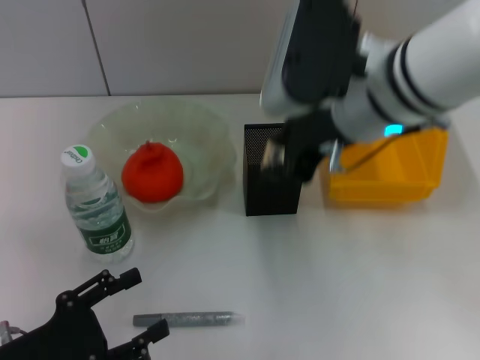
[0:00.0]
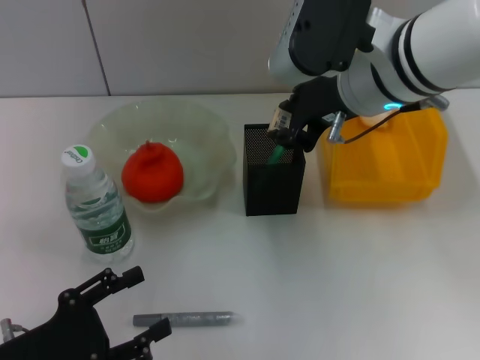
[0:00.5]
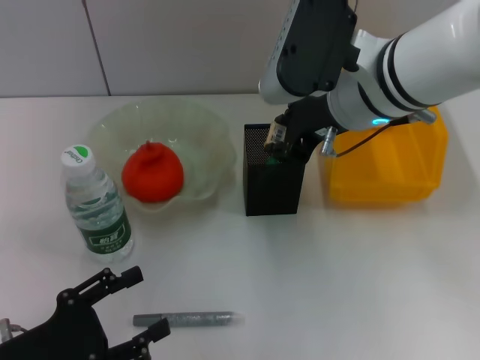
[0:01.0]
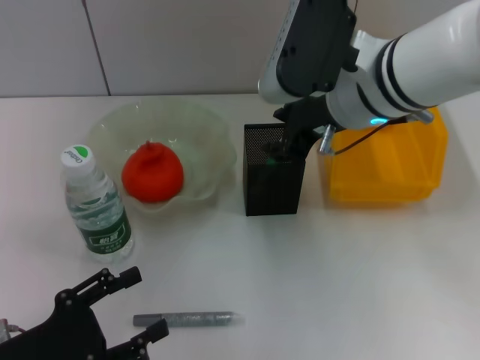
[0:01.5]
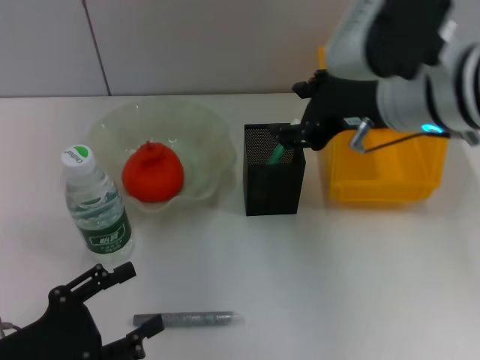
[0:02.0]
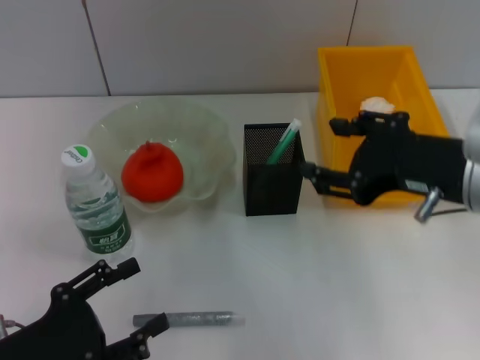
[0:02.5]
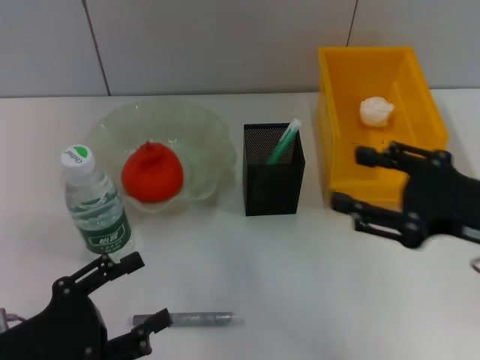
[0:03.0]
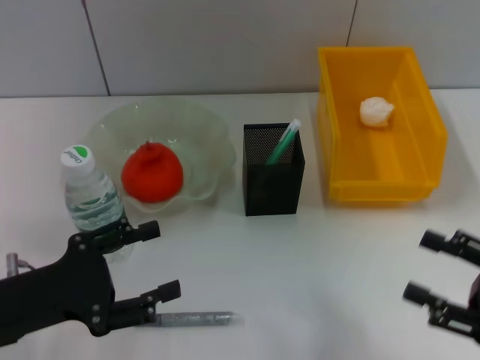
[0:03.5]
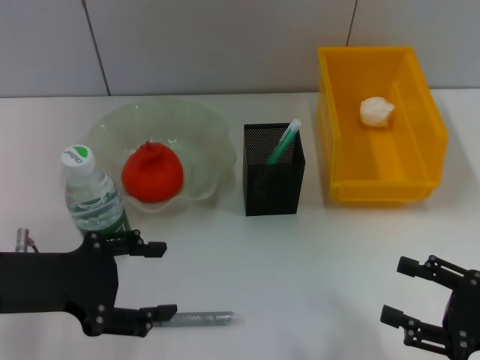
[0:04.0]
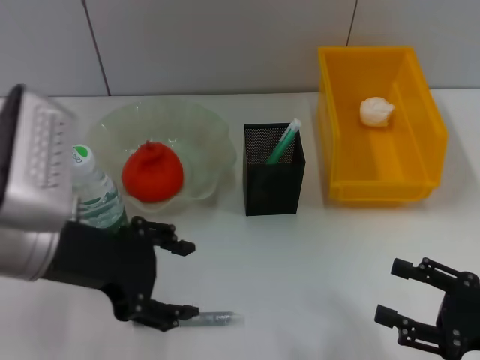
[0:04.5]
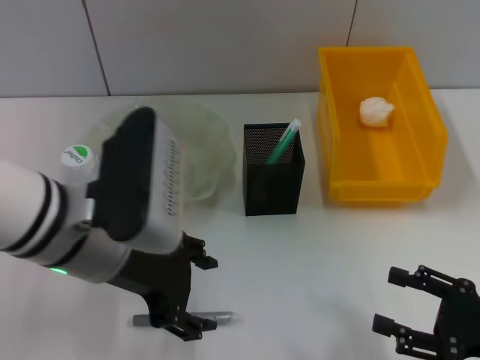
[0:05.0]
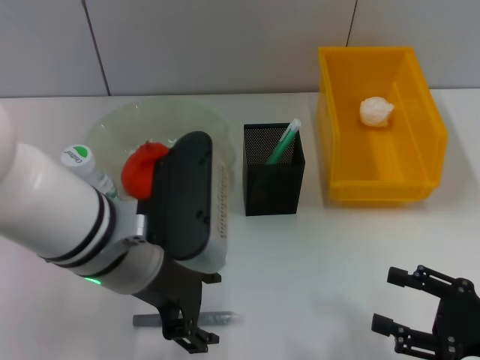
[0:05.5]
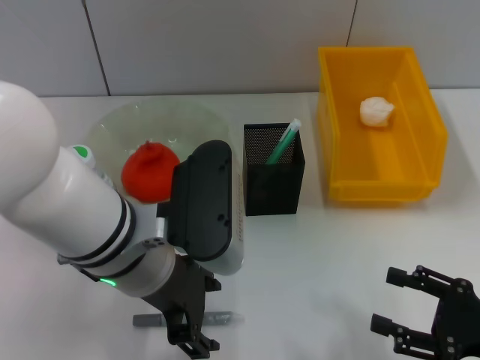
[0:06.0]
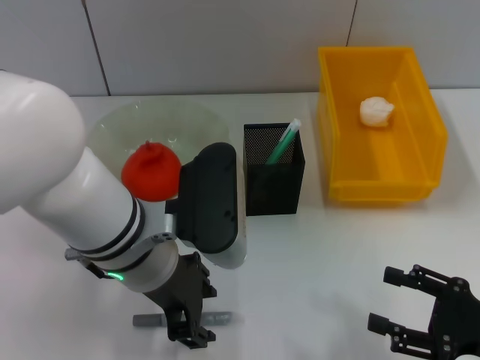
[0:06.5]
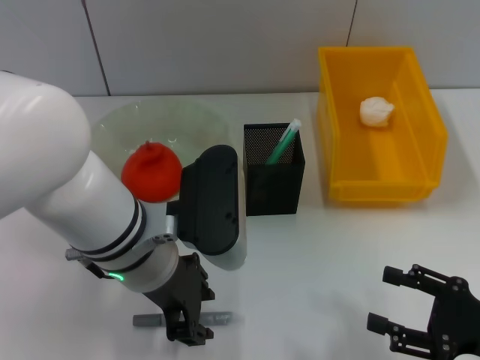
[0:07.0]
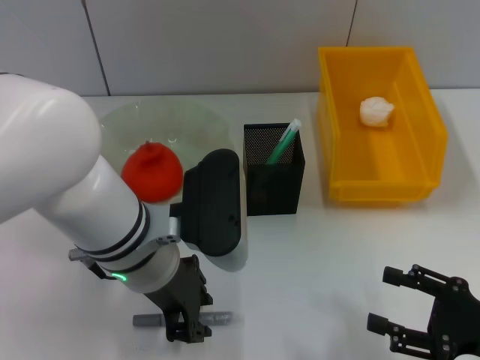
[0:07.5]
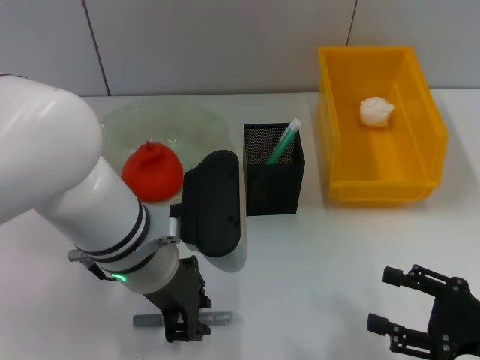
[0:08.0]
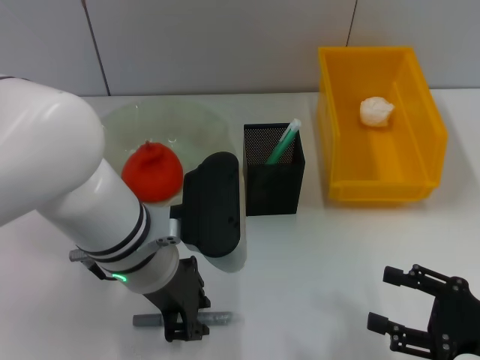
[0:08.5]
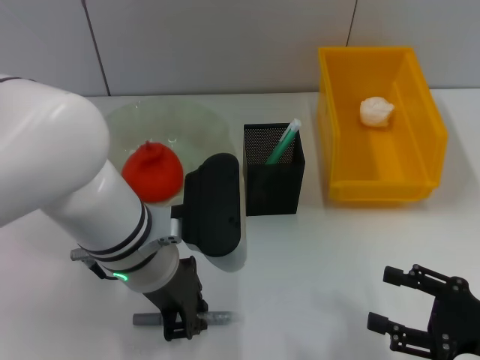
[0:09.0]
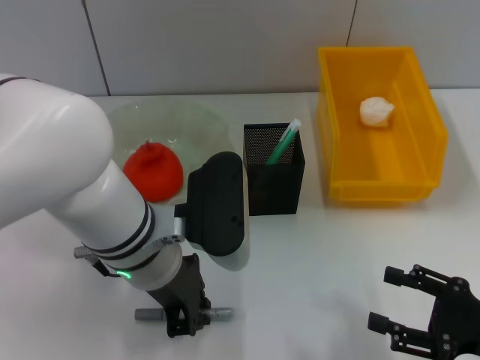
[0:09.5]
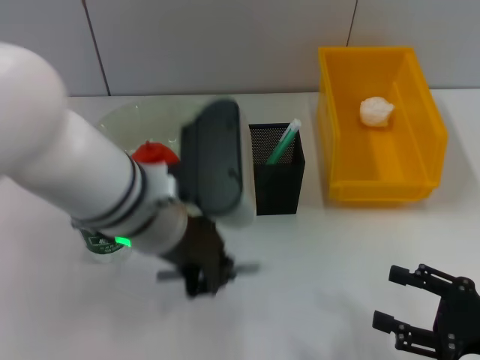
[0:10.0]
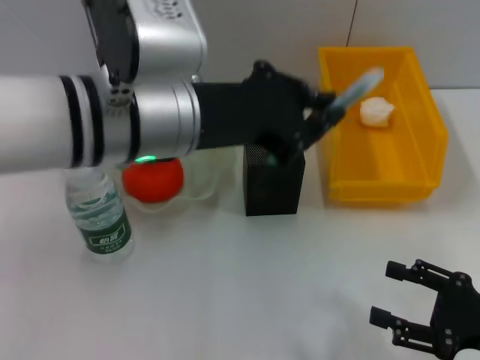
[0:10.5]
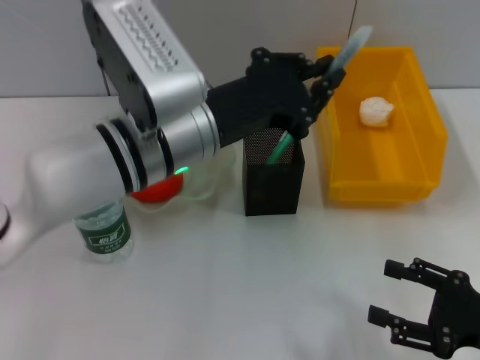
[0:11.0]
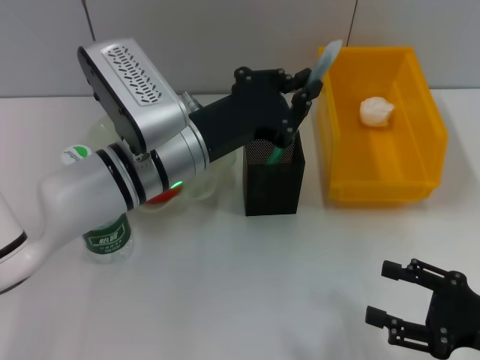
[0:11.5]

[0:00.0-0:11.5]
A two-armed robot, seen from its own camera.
Step, 0:00.0 to 0:01.5: Put the eraser into the pen holder with the right hand.
Step, 0:02.0 to 0:09.0: Grab the gray glue with the left hand.
0:00.0 to 0:02.0: The grippers move only a little.
0:02.0 to 0:04.0: The right gripper shifts about 30 cm downward, to the right and backward. Meanwhile the left gripper heads upward and forward, covering some 10 cm.
0:04.0 to 0:06.0: The left gripper goes some 15 cm to the right.
0:06.0 to 0:07.5: The left gripper closes its fingers.
0:07.5 to 0:09.5: The two grippers keep their place.
0:09.5 to 0:11.5: The left gripper goes upward and returns, about 10 cm each way.

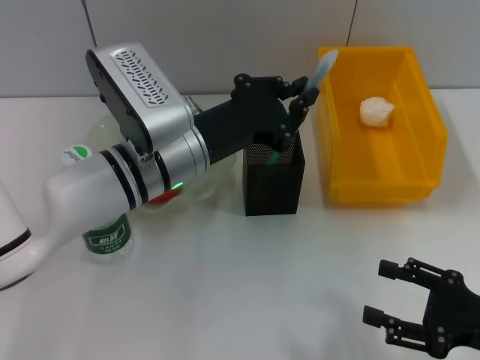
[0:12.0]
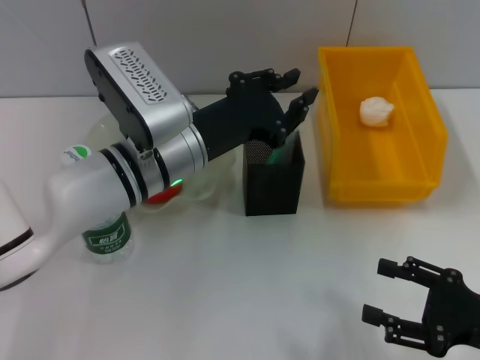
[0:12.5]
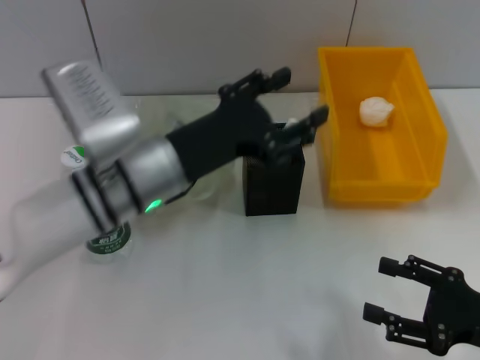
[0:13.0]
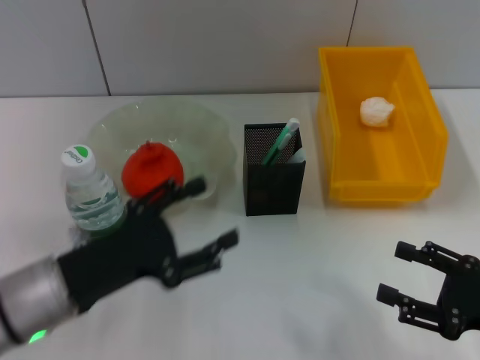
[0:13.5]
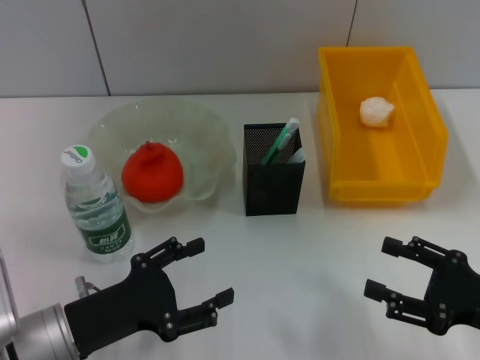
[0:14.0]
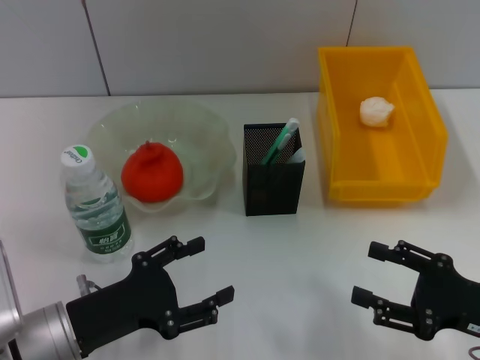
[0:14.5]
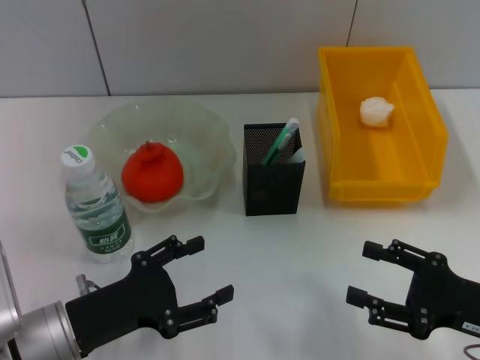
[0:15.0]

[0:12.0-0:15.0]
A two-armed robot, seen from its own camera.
0:12.0 to 0:13.5: The left gripper moves backward and to the left, approximately 15 cm, and opens up.
0:13.5 to 0:15.0: The left gripper shifts by about 5 cm.

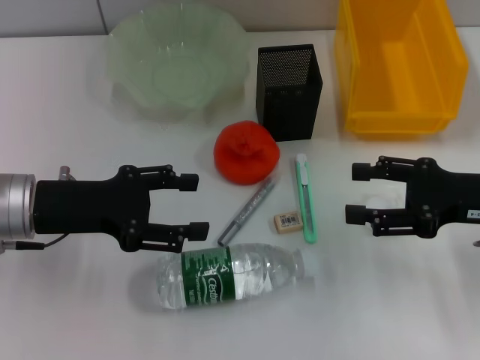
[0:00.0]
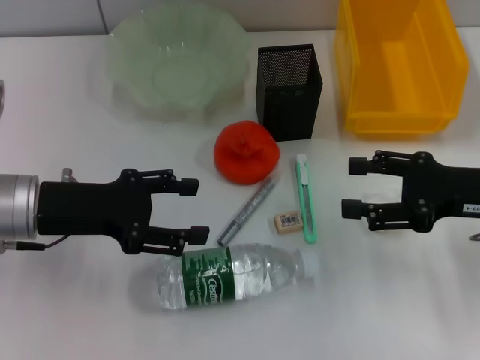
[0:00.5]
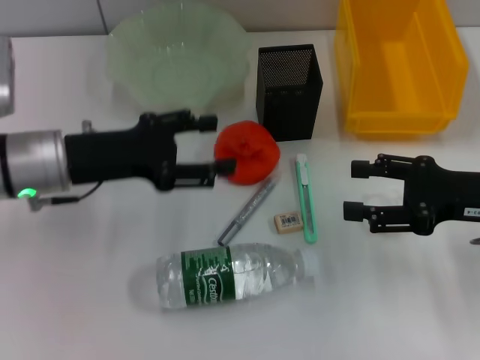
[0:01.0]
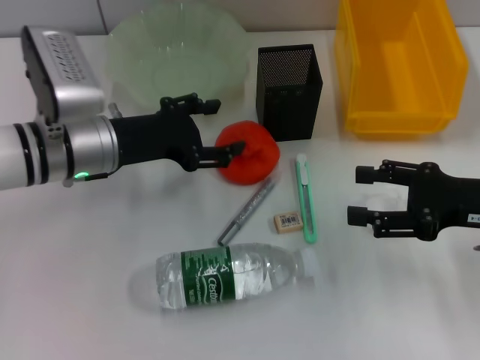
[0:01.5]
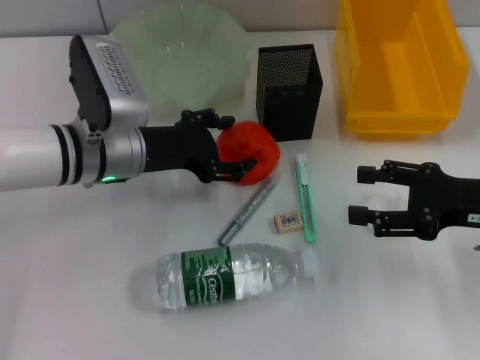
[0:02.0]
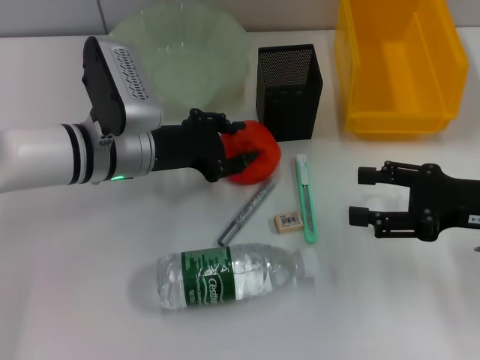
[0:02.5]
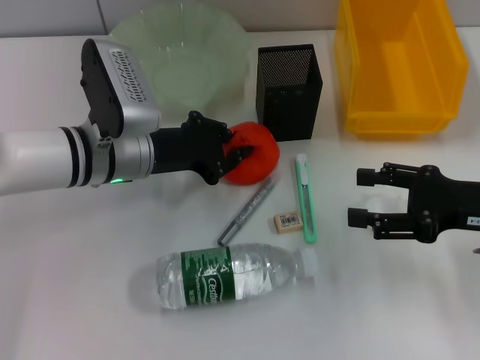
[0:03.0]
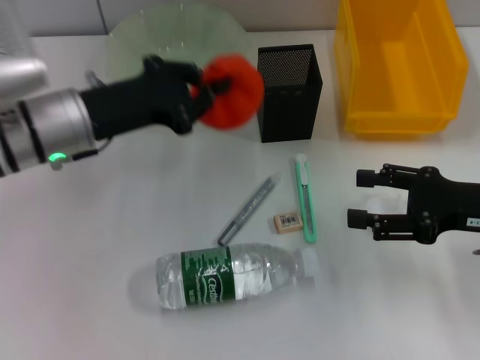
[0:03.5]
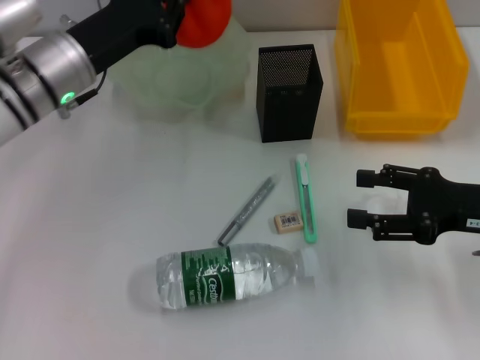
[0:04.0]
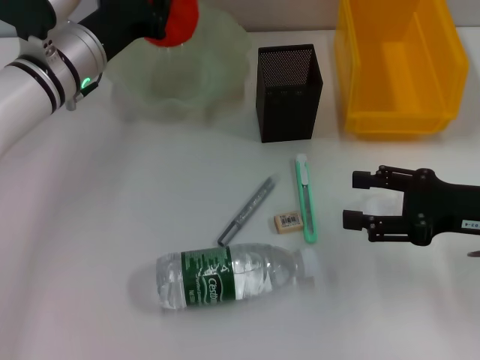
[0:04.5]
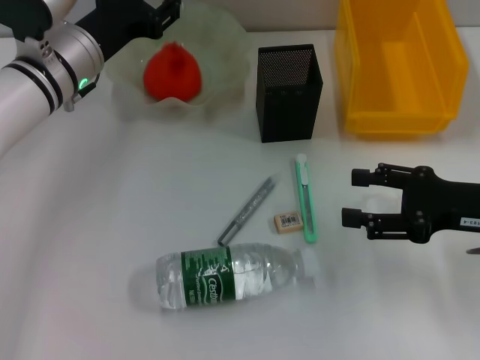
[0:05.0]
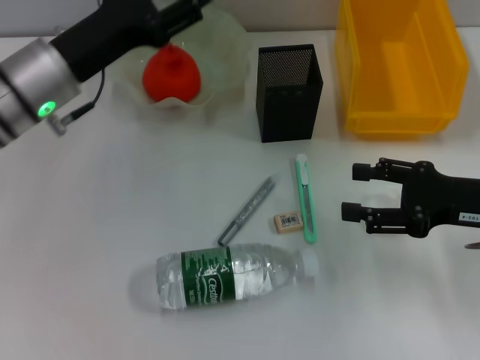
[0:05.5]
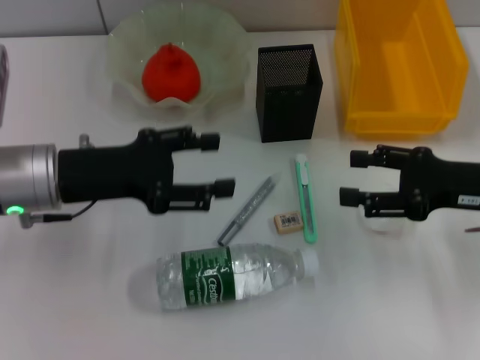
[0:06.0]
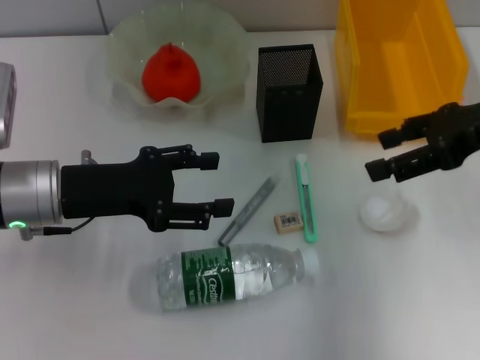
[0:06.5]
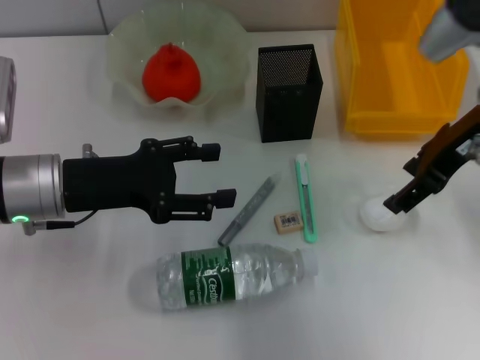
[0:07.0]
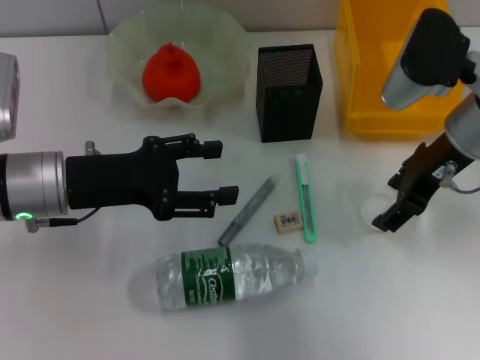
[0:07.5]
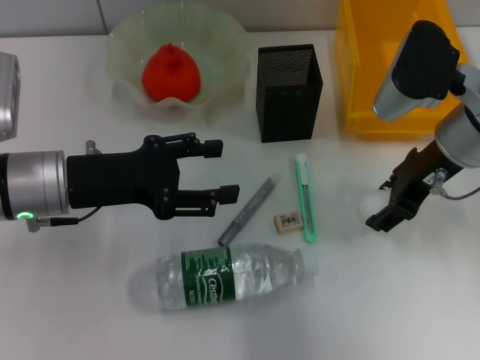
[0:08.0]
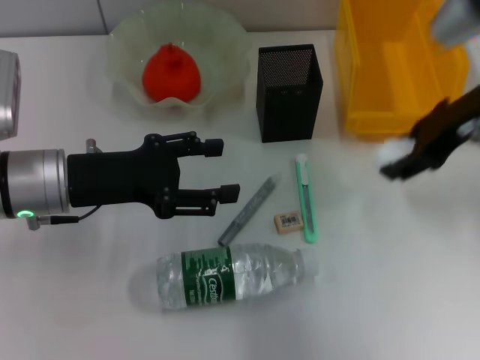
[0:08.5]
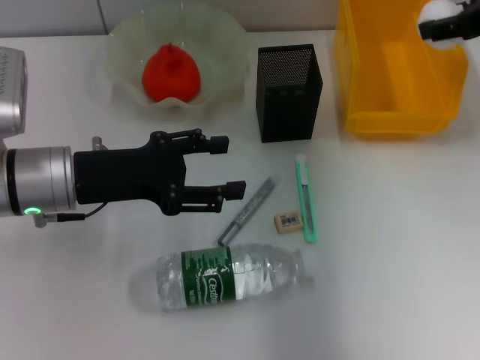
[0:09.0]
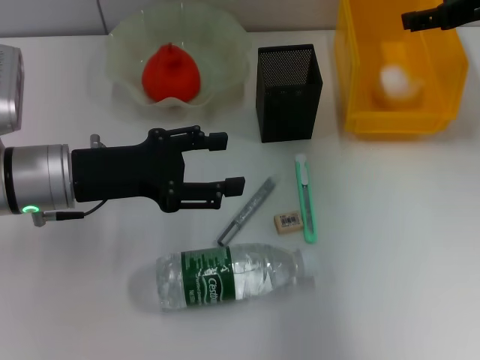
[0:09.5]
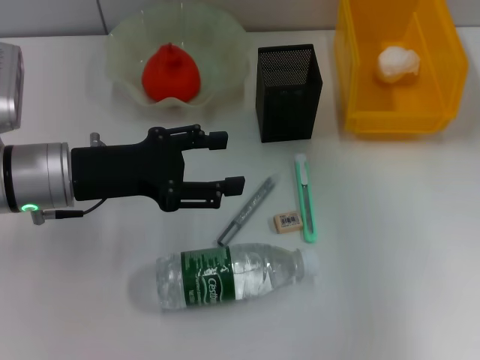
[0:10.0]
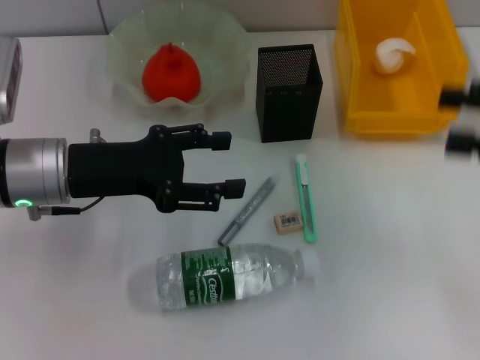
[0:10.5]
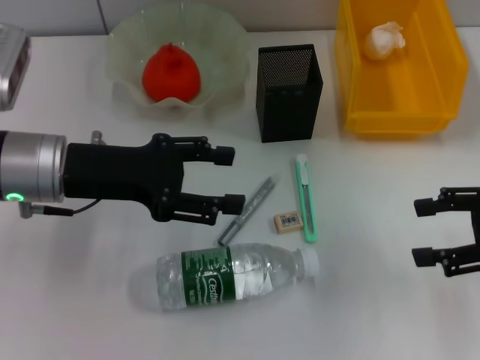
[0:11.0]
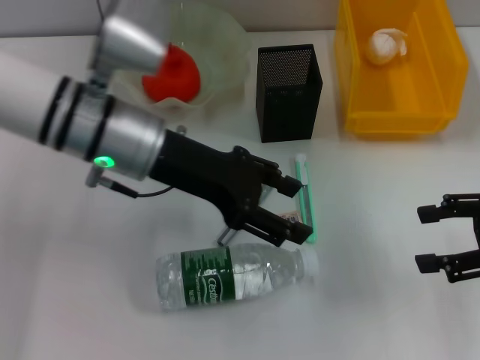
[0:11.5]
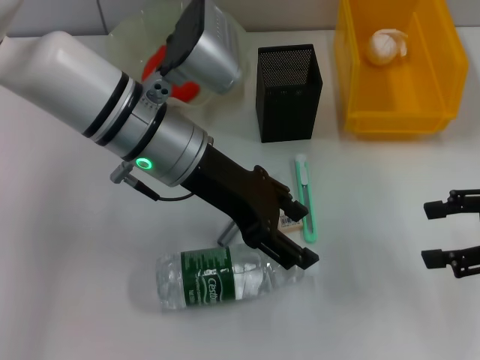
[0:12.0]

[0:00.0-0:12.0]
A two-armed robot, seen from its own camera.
Step, 0:00.0 to 0:02.5: Grab the orange with the left hand.
Step, 0:03.0 to 0:05.0: Place the orange into the fruit bowl with the left hand.
Step, 0:05.5 to 0:08.0: Grab the paper ball with the right hand.
Step, 0:08.5 to 0:09.5: Place the paper ball into the trash can with the right hand.
0:00.0 to 0:02.0: The left gripper travels to the right and forward by approximately 10 cm.
0:02.0 to 0:04.0: The left gripper heads upward, covering about 5 cm, and closes.
0:04.0 to 0:06.0: The left gripper travels backward by approximately 5 cm, and opens up.
0:06.0 to 0:08.0: The right gripper heads to the left and forward, covering approximately 10 cm.
0:08.0 to 0:10.0: The right gripper heads to the right and upward, covering approximately 15 cm.
0:10.0 to 0:12.0: The right gripper heads backward and downward, covering approximately 15 cm, while the left gripper travels to the right and upward by about 15 cm.
